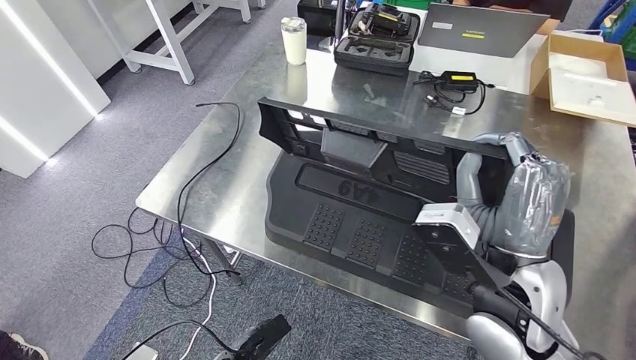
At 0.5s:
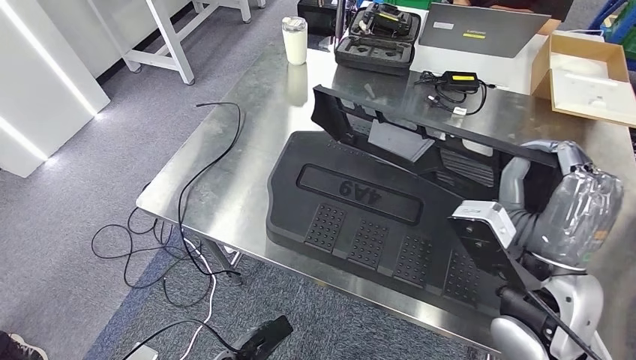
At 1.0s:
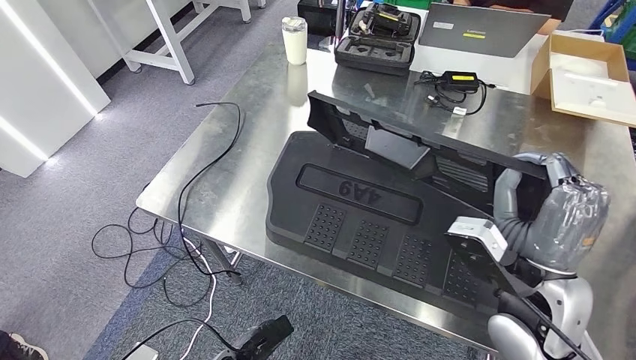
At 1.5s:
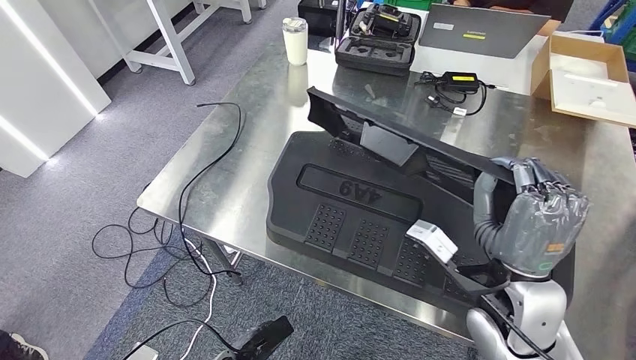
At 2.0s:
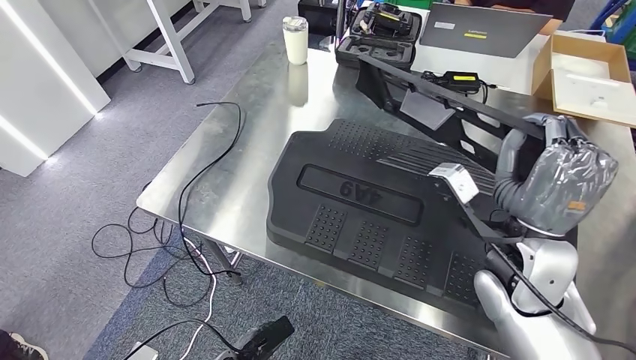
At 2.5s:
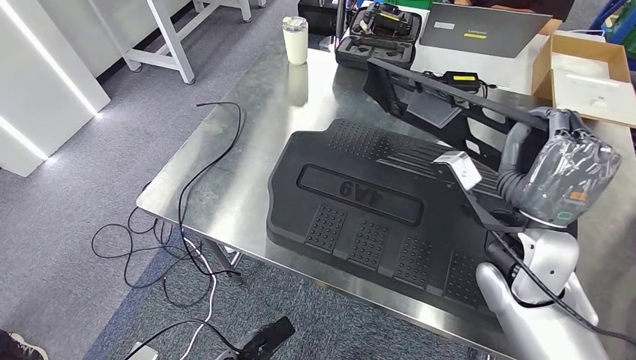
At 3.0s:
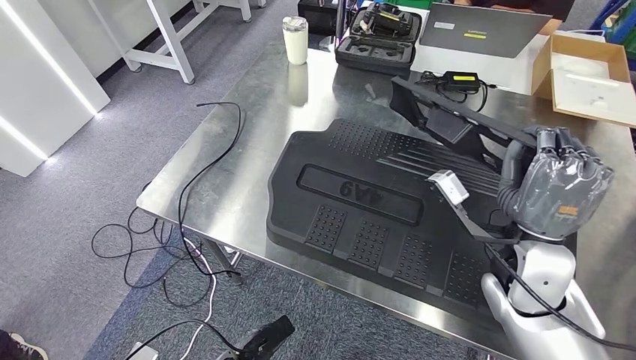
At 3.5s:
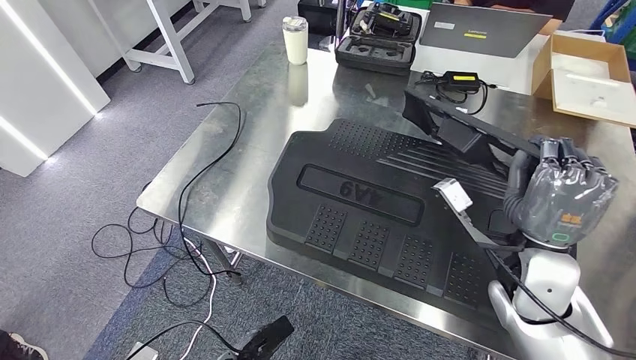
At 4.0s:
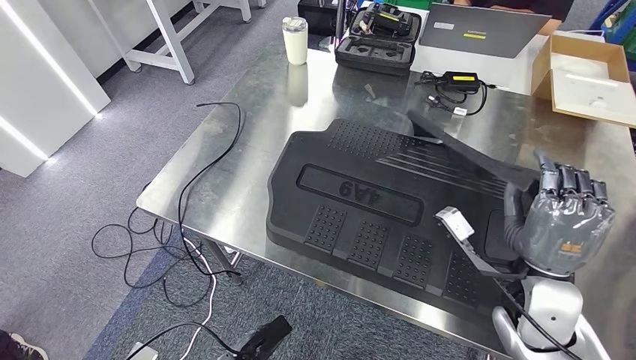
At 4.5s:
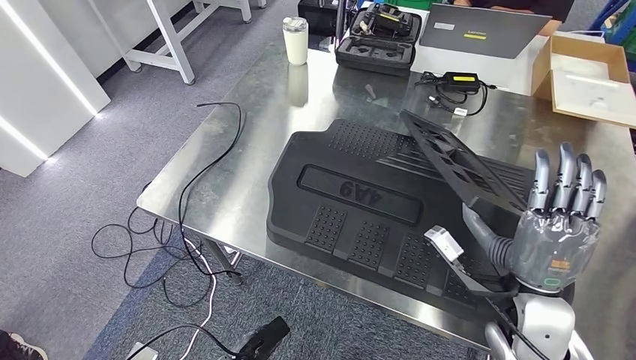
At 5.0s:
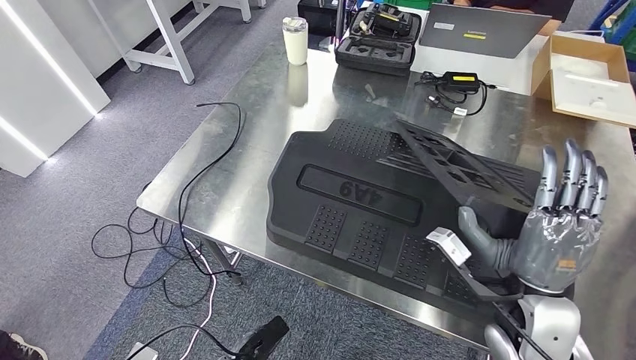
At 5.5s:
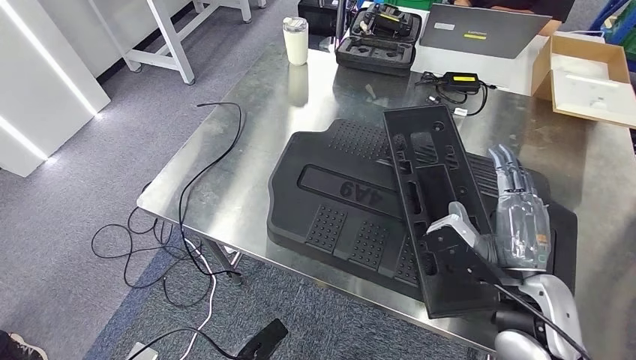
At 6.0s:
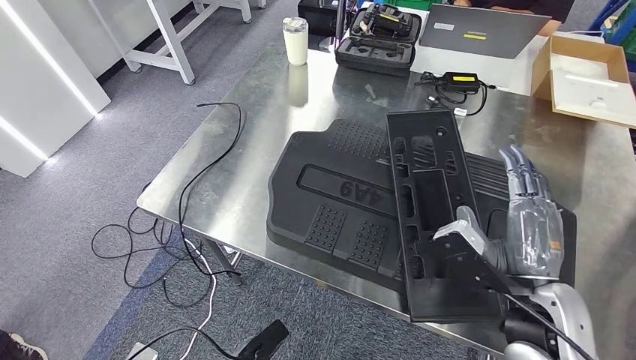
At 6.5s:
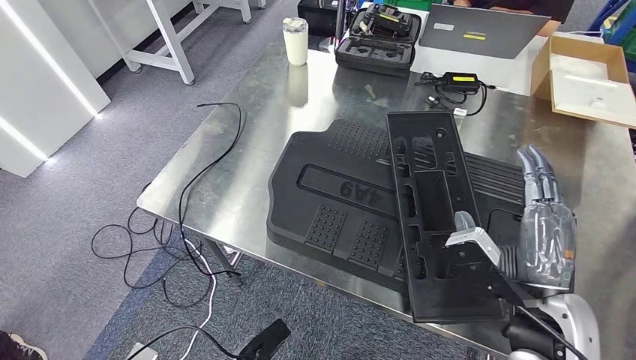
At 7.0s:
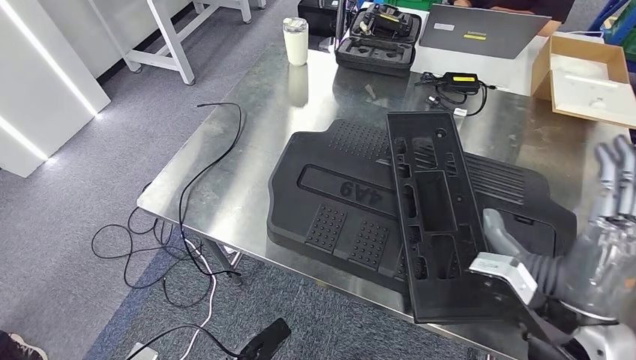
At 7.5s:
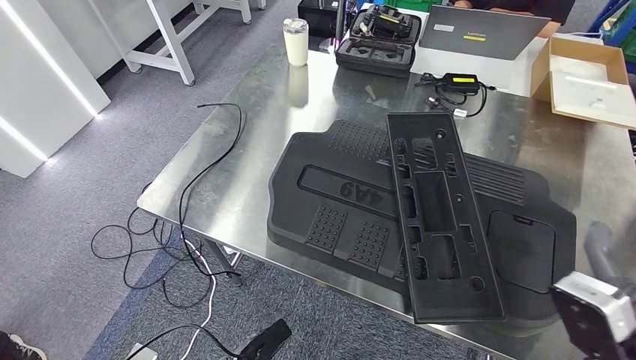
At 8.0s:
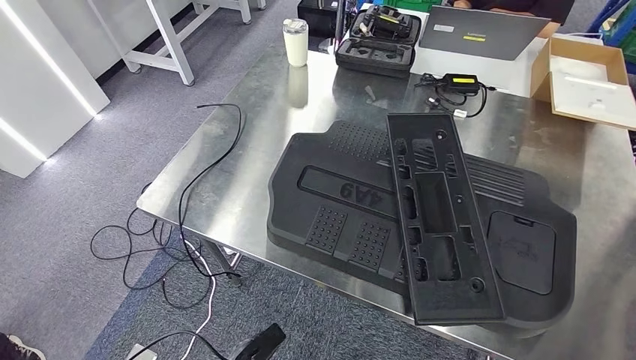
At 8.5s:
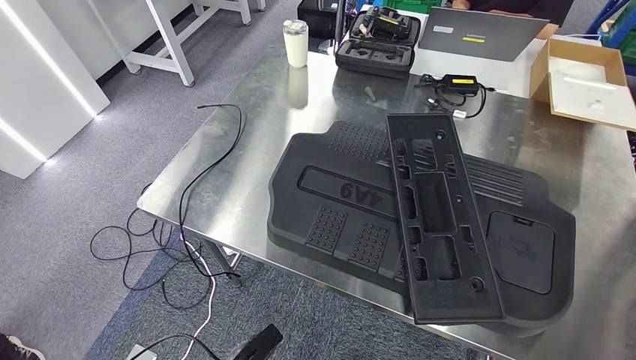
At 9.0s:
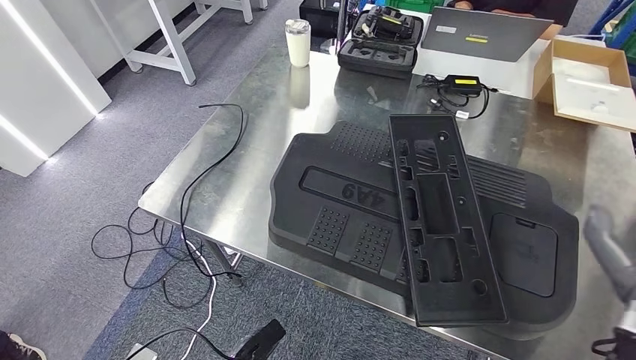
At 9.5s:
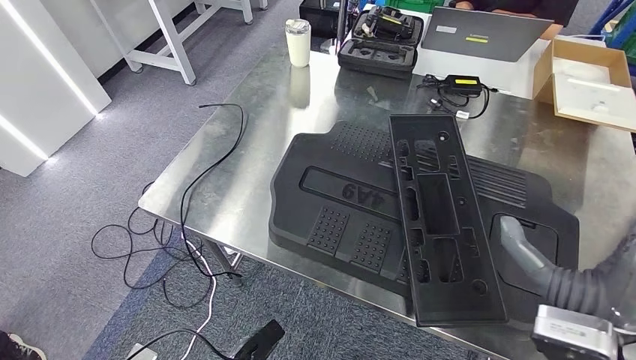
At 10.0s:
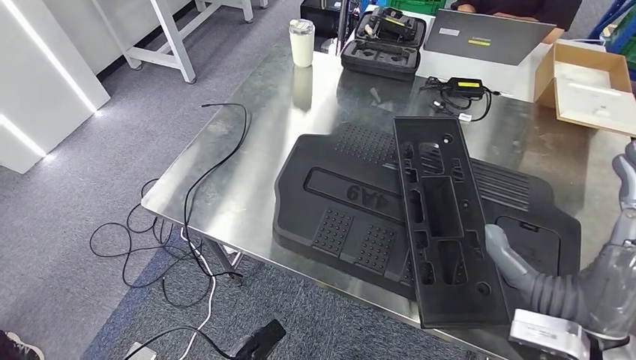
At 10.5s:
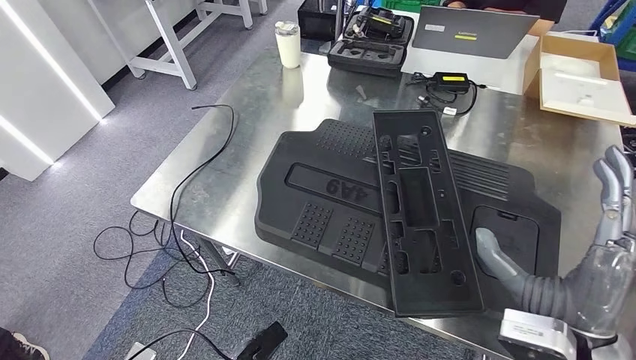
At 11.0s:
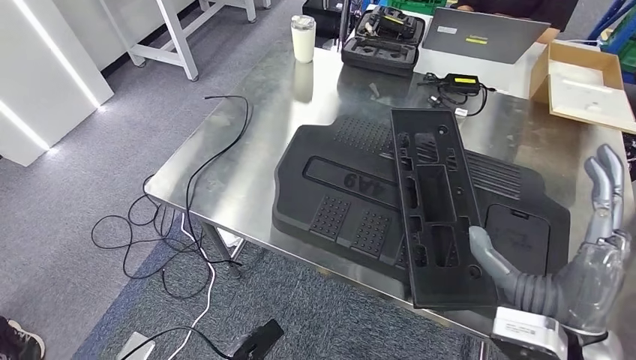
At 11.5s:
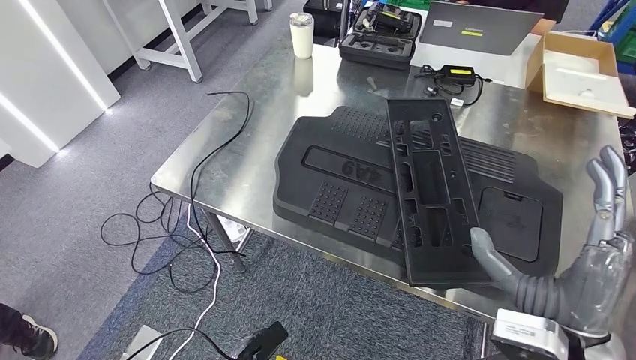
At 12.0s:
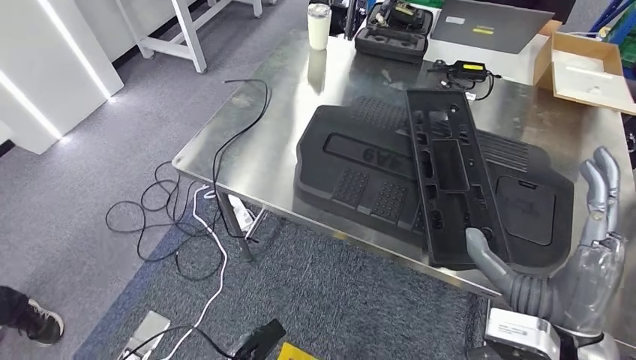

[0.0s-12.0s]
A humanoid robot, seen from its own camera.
0.0s to 2.0s: The right hand goes about 5 cm forward.
2.0s to 4.0s: The right hand travels downward by approximately 5 cm.
4.0s to 6.0s: The right hand ends up some 5 cm from where it was.
6.0s to 8.0s: The right hand moves to the right and backward, approximately 20 cm.
8.0s to 10.0s: The right hand goes about 15 cm to the left.

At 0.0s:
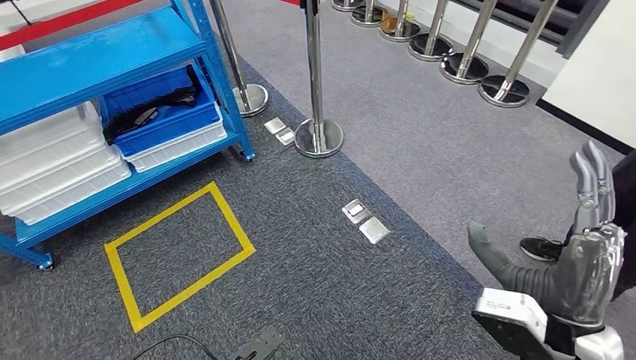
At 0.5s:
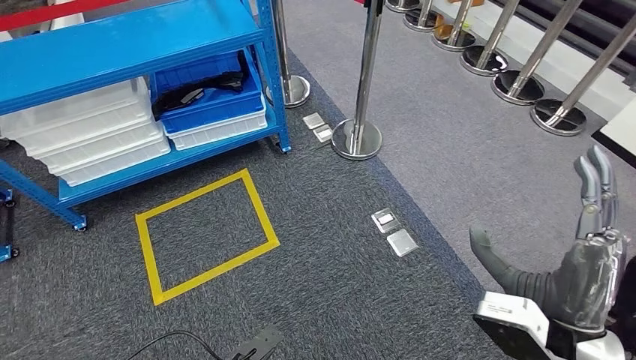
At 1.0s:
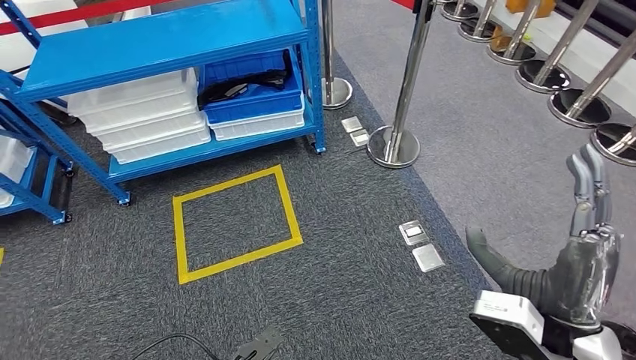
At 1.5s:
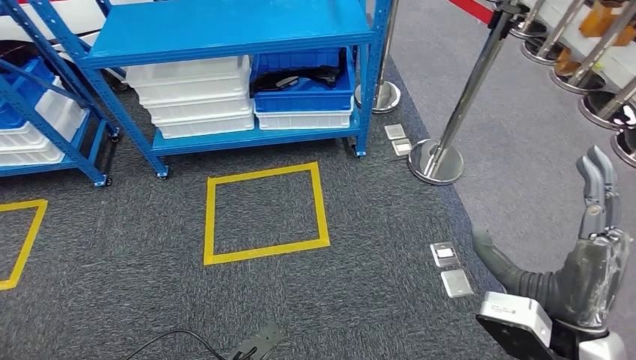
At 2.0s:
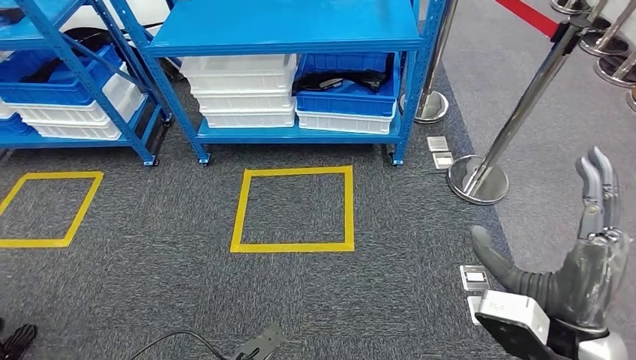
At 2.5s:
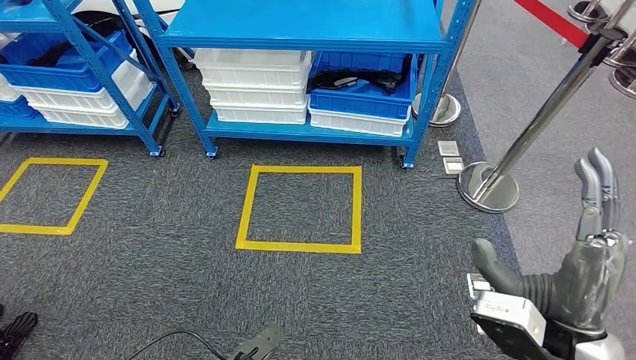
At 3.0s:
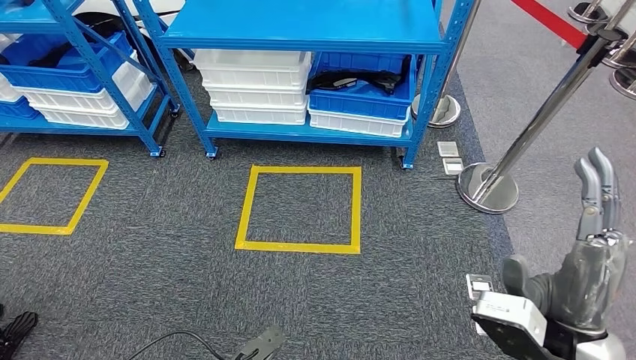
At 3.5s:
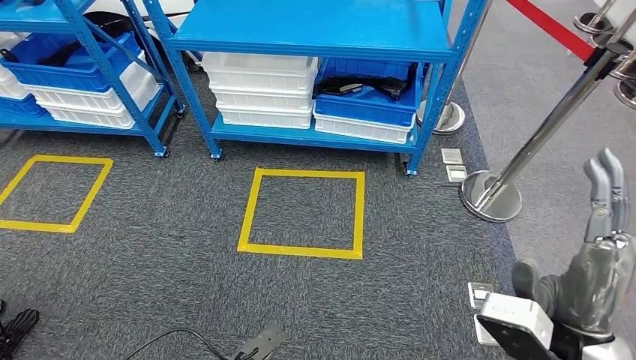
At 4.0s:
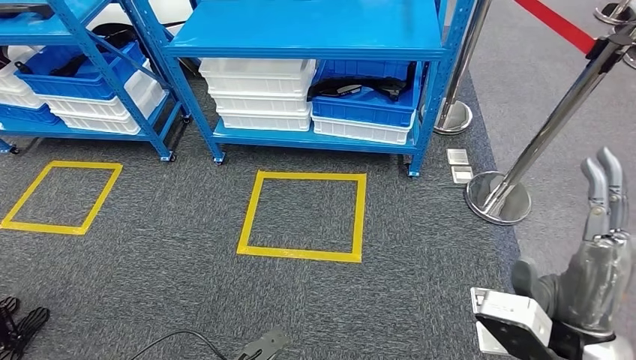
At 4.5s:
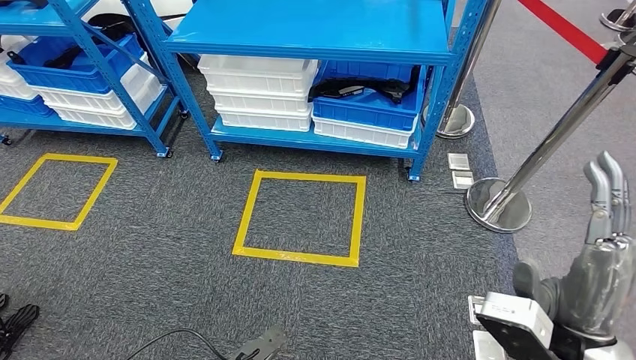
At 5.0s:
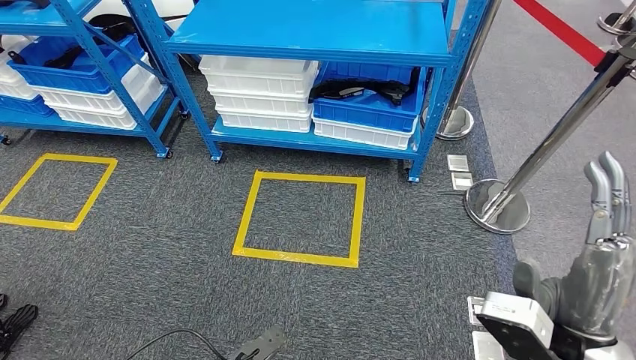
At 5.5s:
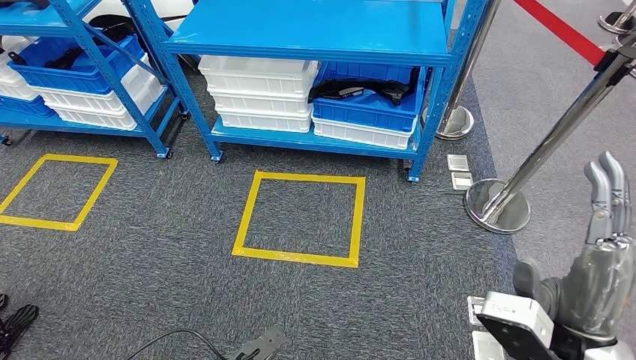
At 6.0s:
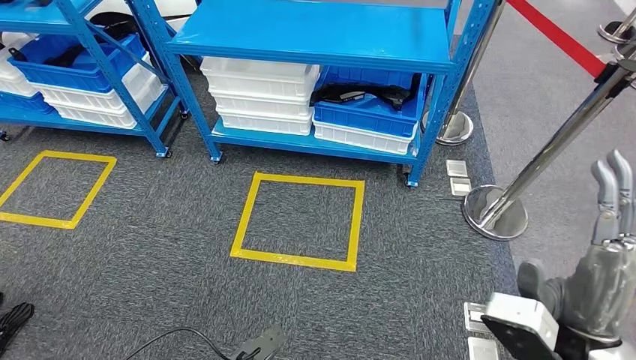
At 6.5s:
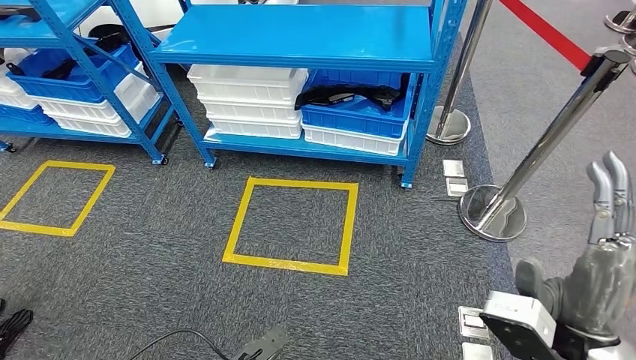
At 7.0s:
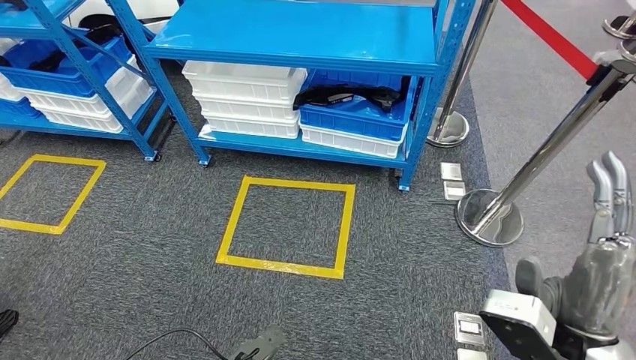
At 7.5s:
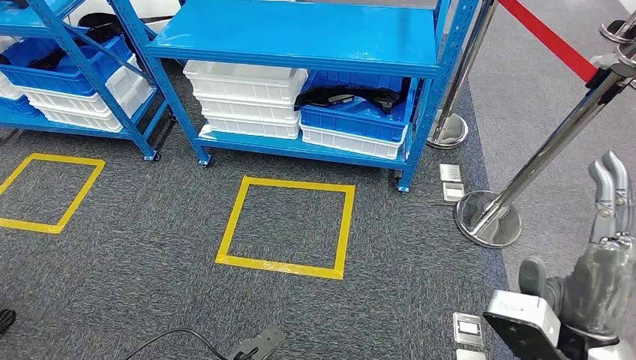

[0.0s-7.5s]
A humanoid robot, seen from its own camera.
Step, 0.0s to 7.5s: Move to the initial position of the shelf.
